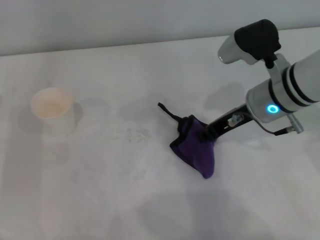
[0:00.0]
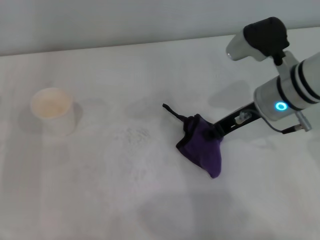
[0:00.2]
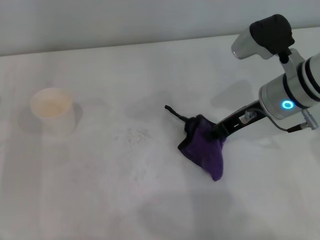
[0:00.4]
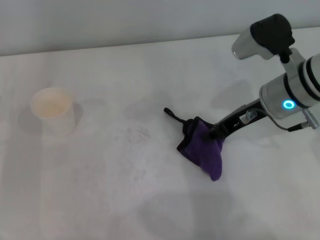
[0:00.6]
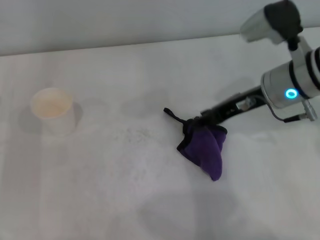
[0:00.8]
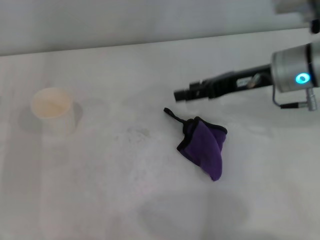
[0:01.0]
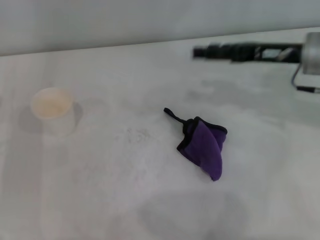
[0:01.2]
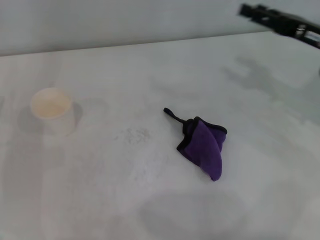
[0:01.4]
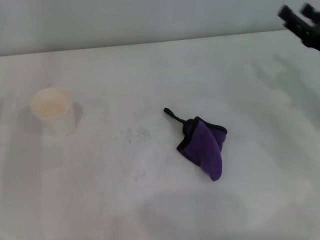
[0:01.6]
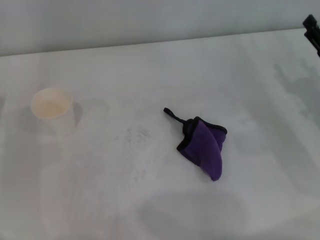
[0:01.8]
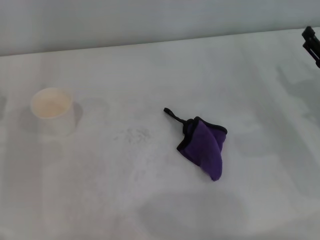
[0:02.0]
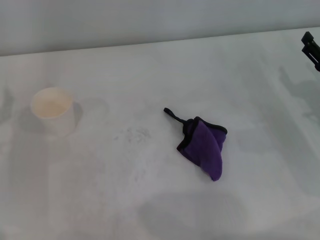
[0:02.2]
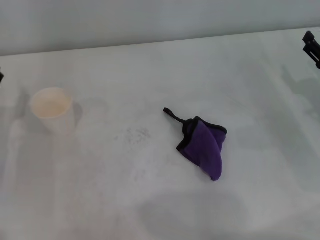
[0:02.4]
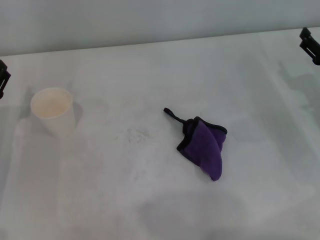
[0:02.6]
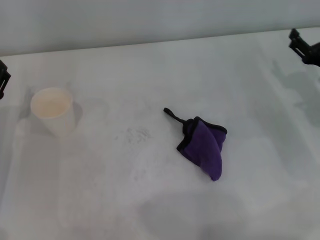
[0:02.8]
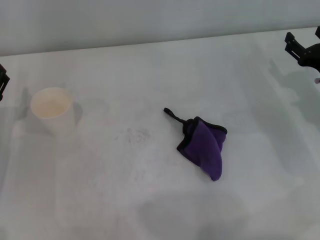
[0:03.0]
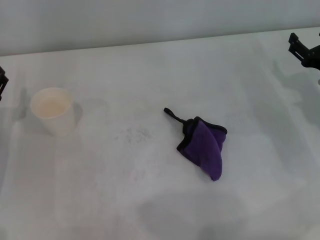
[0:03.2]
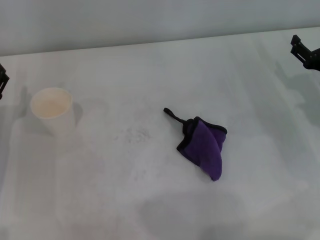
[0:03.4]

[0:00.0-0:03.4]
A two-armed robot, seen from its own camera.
Step, 0:00.0 to 0:00.4: Place the rag on the table with the right gripper.
0:00.0 to 0:01.6: The right gripper is displaced to the right by approximately 15 cm, and opens up.

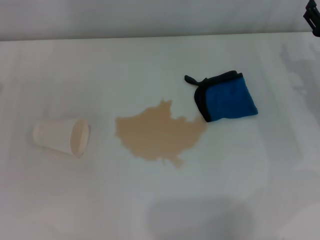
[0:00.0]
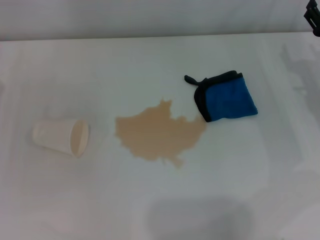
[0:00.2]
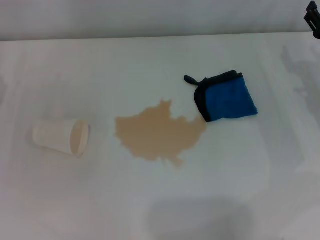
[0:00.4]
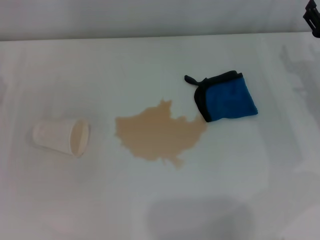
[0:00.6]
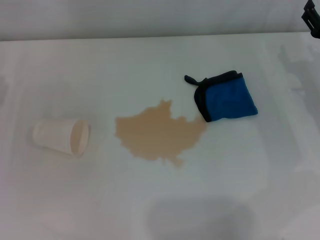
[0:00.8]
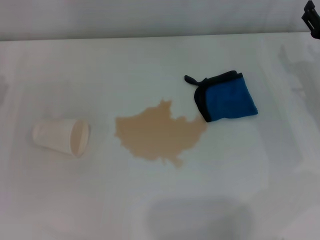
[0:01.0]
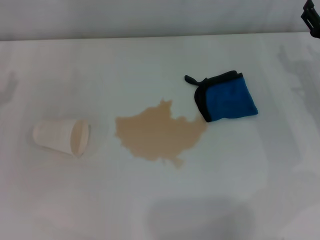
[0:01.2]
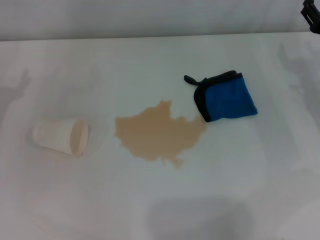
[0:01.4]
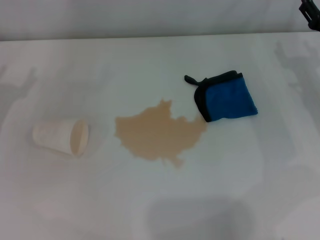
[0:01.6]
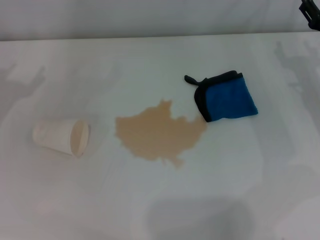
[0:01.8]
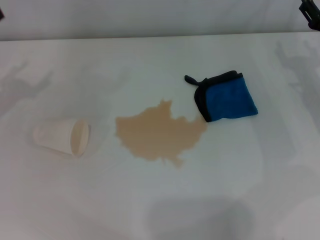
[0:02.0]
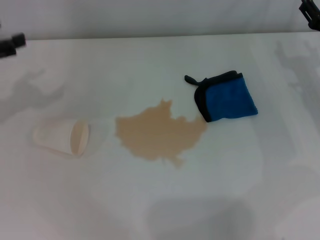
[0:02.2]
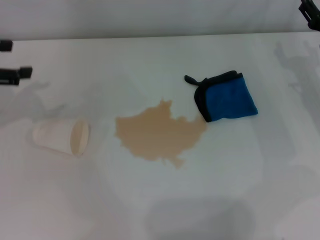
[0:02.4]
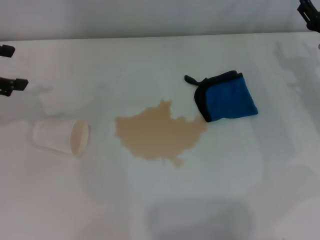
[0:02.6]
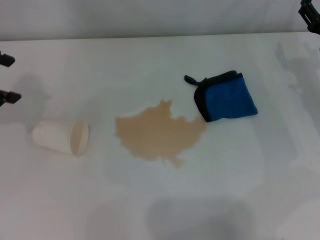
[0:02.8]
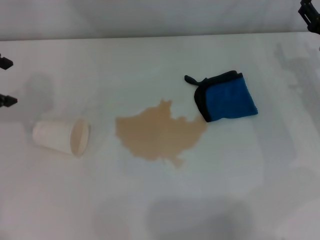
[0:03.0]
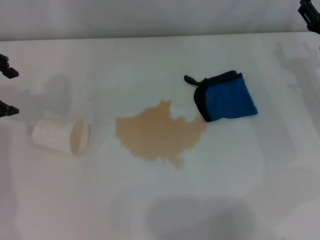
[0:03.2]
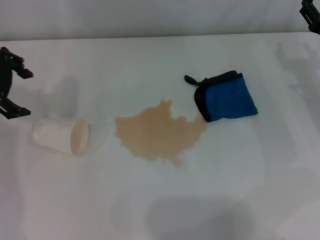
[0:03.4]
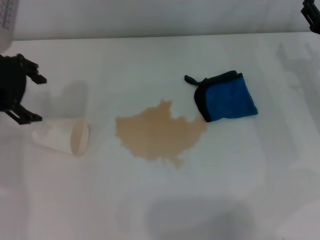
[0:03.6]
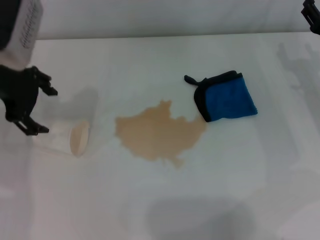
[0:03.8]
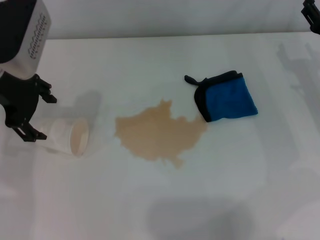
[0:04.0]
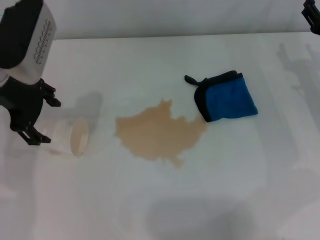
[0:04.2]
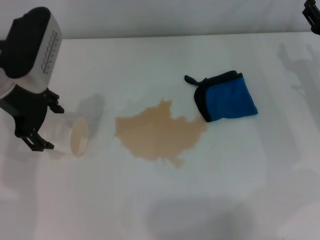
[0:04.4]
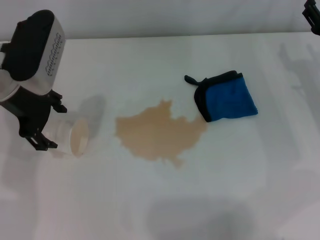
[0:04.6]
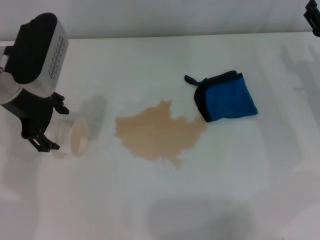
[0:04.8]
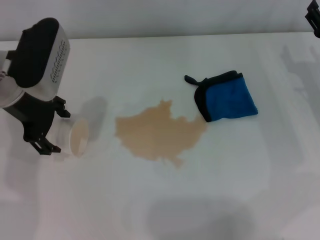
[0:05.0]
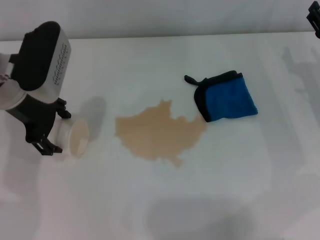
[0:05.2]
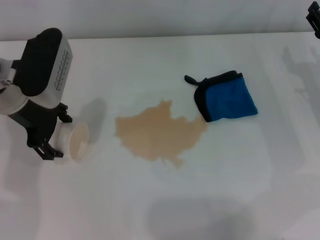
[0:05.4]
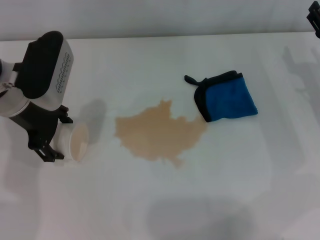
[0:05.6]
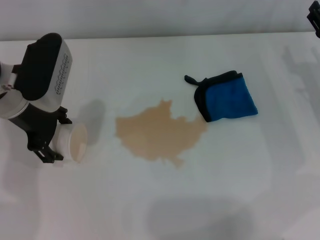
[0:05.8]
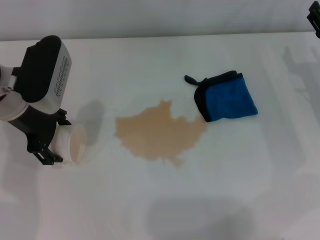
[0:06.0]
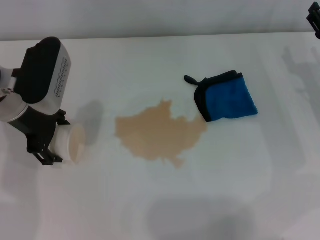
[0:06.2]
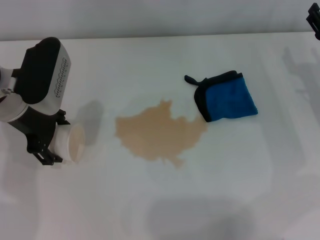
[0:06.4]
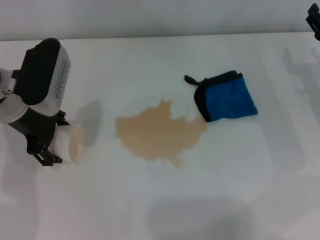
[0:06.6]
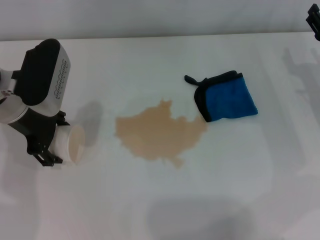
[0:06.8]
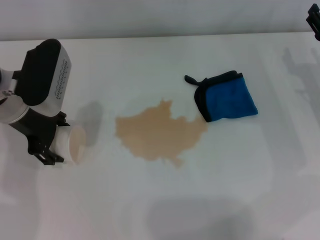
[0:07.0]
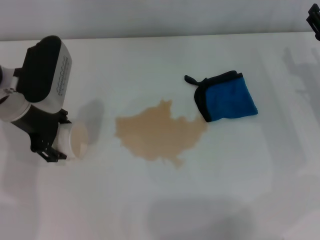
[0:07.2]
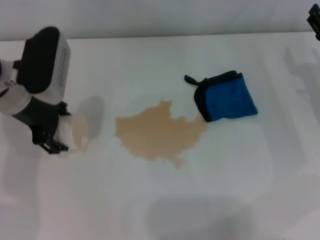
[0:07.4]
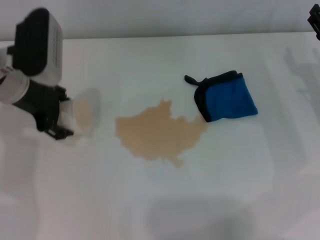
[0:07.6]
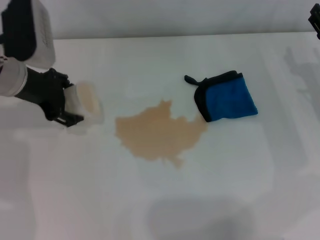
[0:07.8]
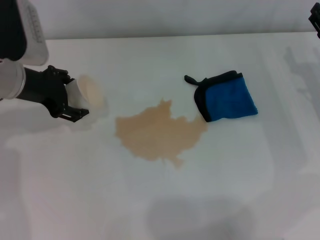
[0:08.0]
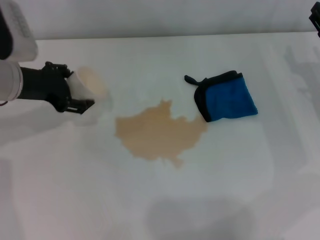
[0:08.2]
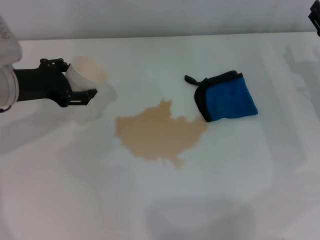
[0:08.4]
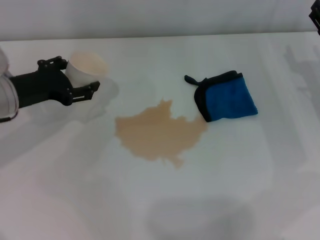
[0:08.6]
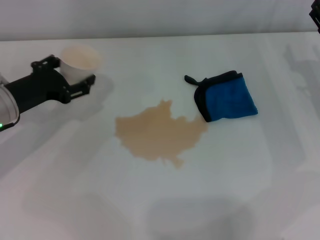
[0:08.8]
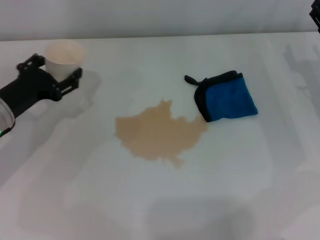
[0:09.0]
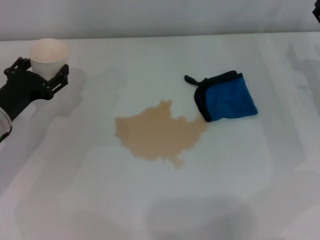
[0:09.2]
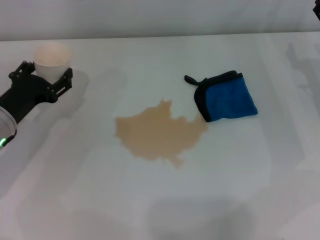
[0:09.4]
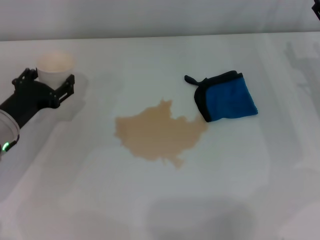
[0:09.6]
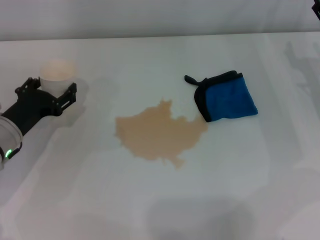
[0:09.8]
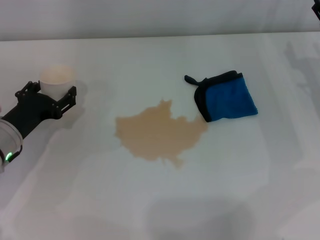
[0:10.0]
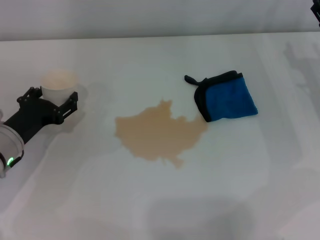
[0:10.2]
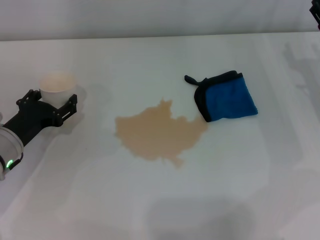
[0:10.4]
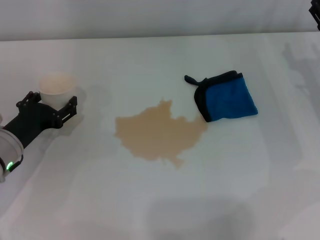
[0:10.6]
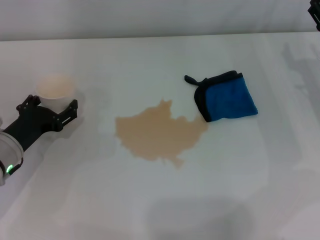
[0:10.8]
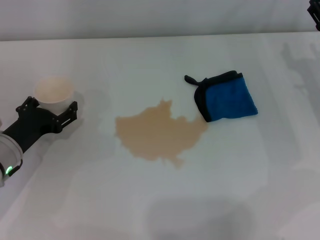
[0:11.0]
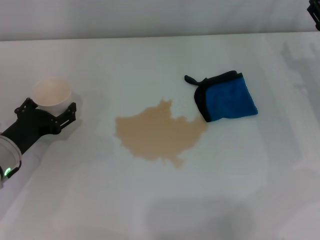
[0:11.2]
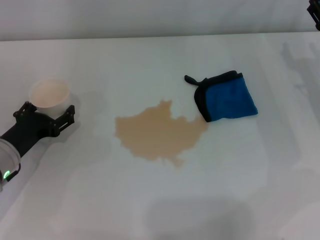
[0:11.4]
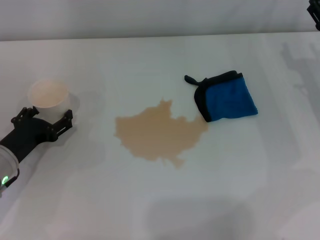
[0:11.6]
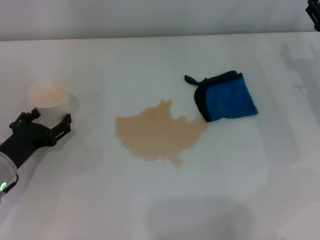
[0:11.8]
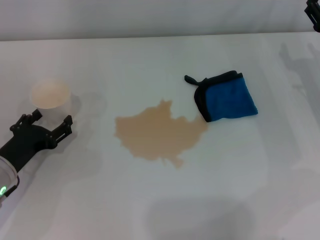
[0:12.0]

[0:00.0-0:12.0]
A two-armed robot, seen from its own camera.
Step, 0:00.0 to 0:07.0: Grasp the paper cup with the left gripper.
Step, 0:07.2 to 0:11.2: Stand the paper cup upright with the left gripper.
0:03.0 to 0:04.4: The left gripper moves to the right and downward, about 10 cm.
0:04.4 to 0:07.6: The grippers make only small movements.
0:07.6 to 0:09.0: The left gripper moves downward, to the left and backward, roughly 10 cm.
0:09.0 to 0:10.4: The left gripper shifts by roughly 5 cm.
0:10.4 to 0:12.0: The grippers make only small movements.

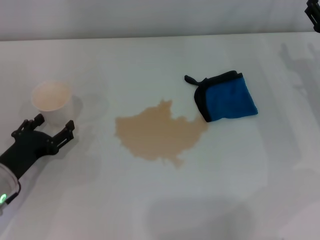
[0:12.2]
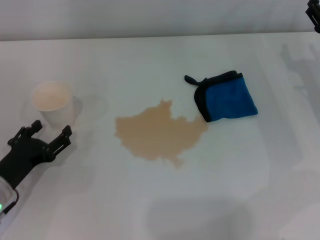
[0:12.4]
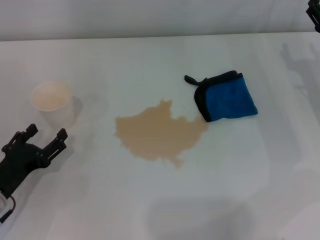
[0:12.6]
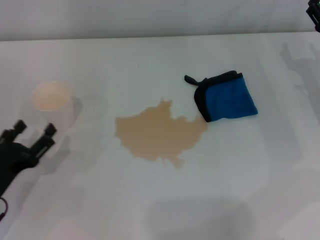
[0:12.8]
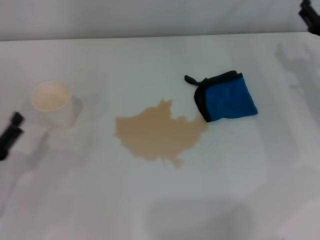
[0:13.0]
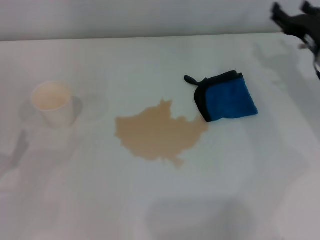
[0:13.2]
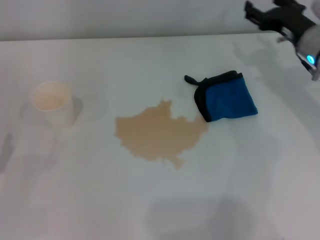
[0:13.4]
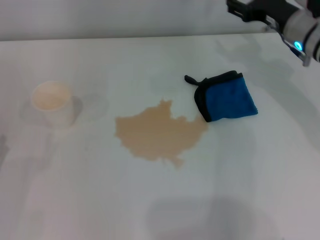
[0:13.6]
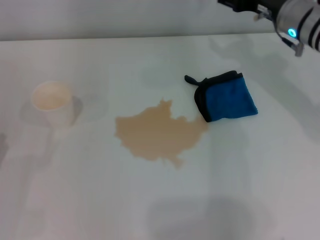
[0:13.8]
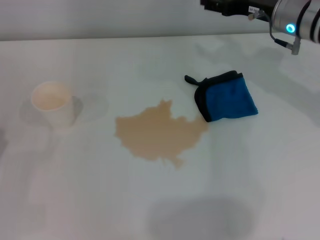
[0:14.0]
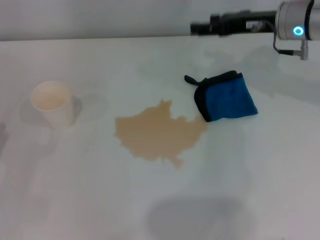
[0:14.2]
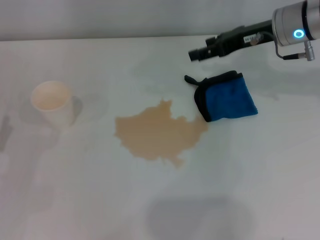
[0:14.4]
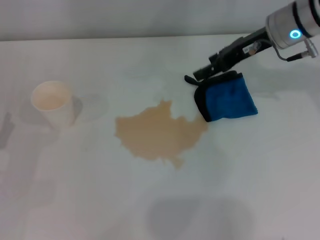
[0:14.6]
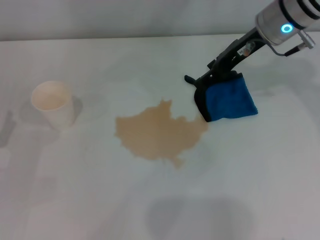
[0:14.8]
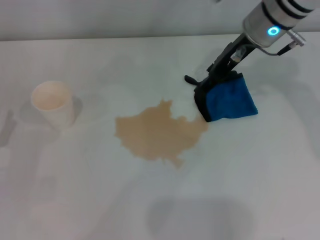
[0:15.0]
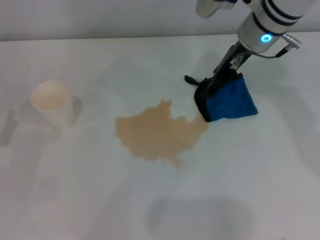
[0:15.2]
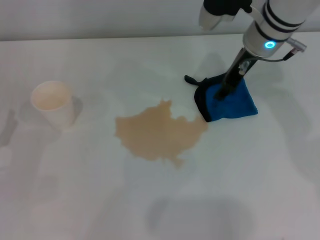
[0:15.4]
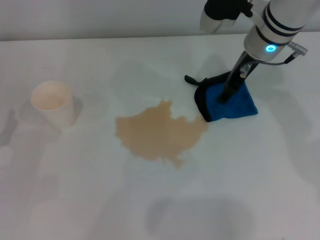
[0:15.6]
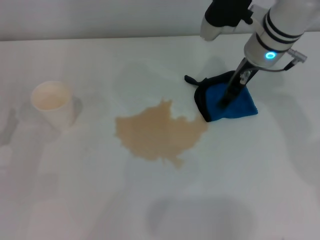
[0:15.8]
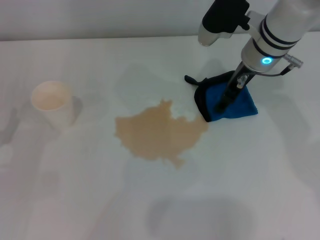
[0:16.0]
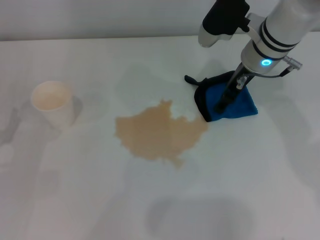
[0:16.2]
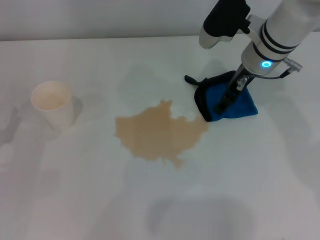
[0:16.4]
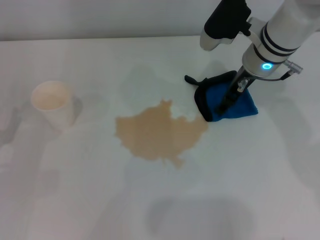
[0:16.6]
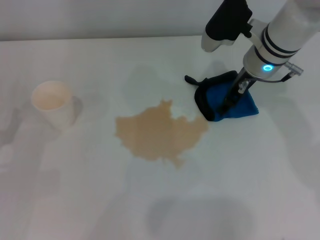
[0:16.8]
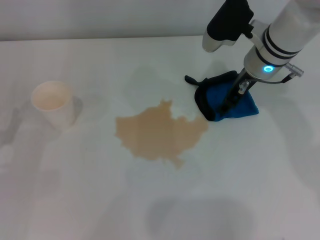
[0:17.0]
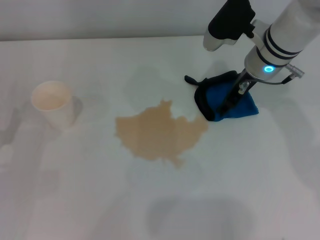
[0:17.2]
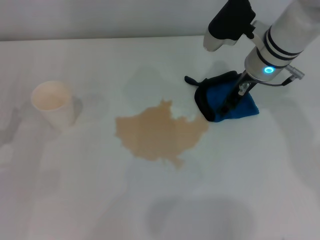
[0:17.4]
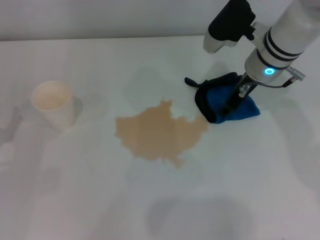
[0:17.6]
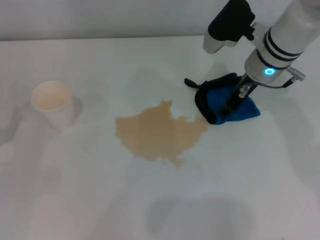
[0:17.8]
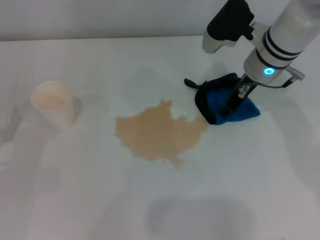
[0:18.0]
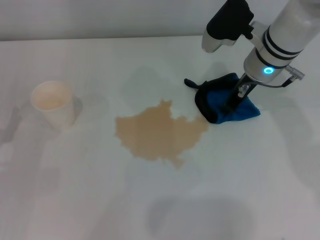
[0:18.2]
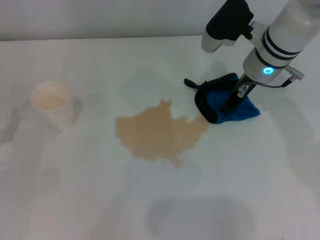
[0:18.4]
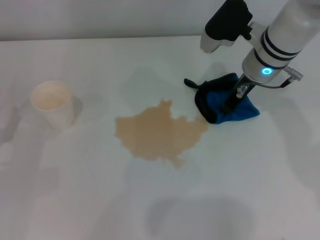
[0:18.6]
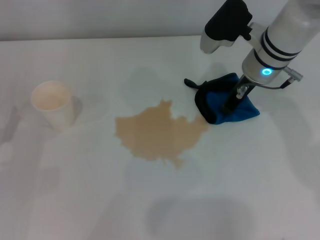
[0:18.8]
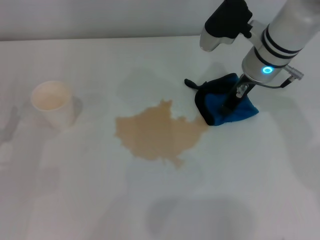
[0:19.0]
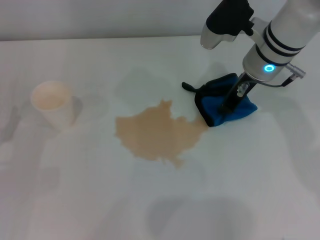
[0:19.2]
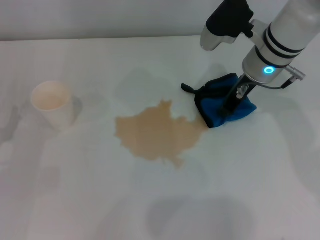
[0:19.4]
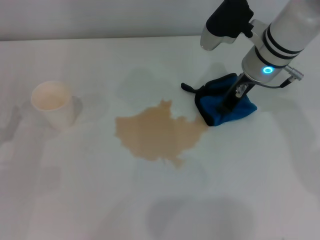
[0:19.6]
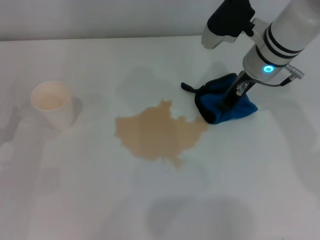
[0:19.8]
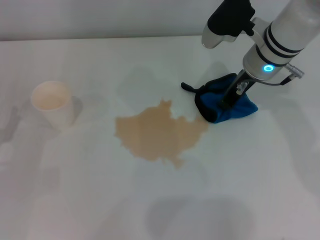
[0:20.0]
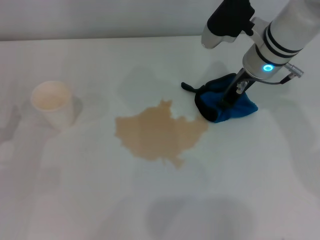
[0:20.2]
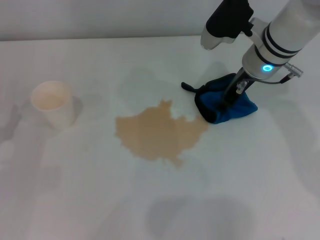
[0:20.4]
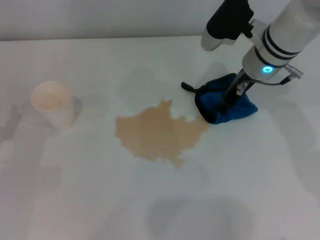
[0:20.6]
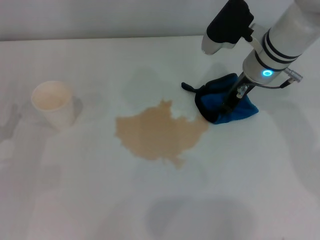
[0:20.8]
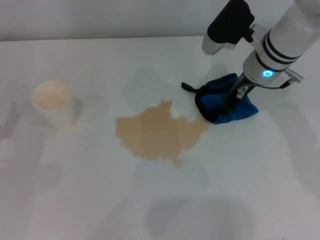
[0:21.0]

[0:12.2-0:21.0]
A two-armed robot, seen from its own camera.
0:12.2 to 0:13.6: The right gripper is displaced to the left, forward and upward by approximately 10 cm, while the left gripper shifts approximately 10 cm backward and to the left.
0:13.6 to 0:15.2: The right gripper goes about 10 cm to the left.
0:15.2 to 0:16.6: The grippers make only small movements.
0:16.6 to 0:18.0: The right gripper closes up.
0:18.0 to 0:19.6: The right gripper closes up.
0:19.6 to 0:21.0: The right gripper opens its fingers.
